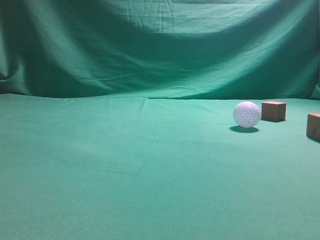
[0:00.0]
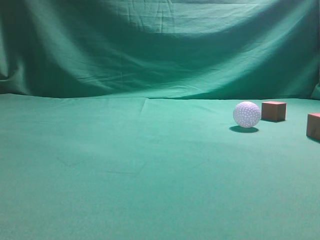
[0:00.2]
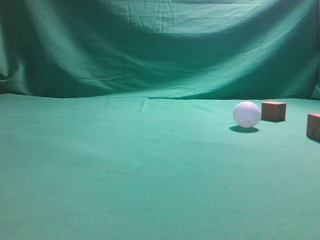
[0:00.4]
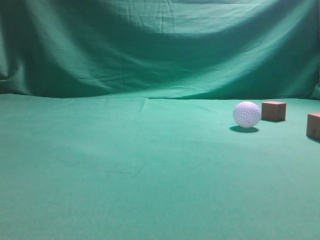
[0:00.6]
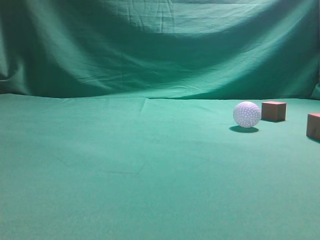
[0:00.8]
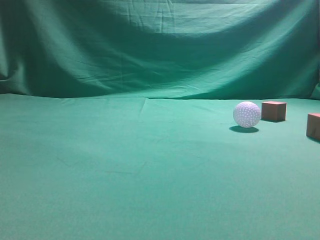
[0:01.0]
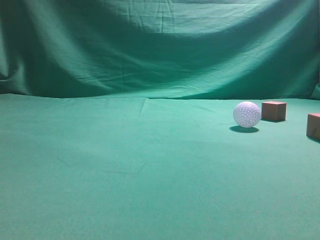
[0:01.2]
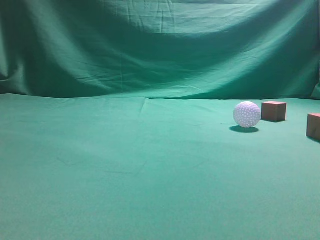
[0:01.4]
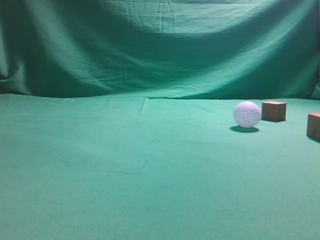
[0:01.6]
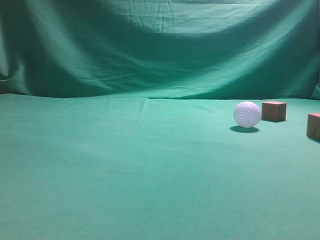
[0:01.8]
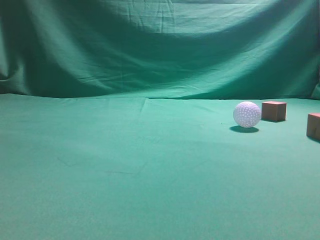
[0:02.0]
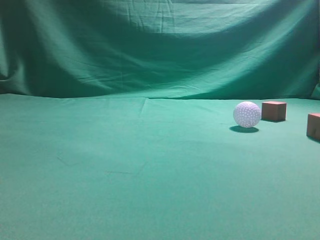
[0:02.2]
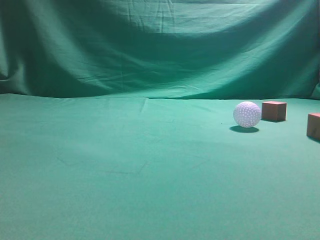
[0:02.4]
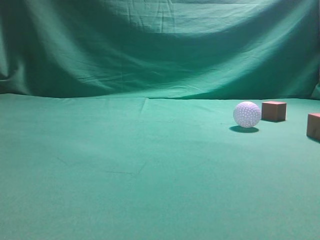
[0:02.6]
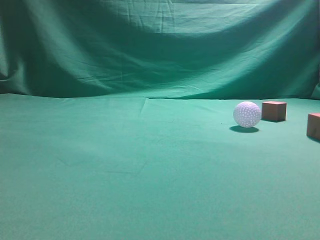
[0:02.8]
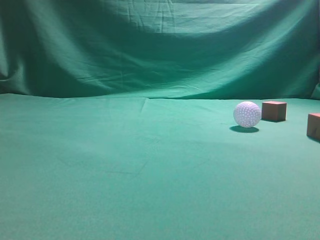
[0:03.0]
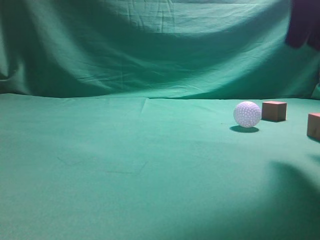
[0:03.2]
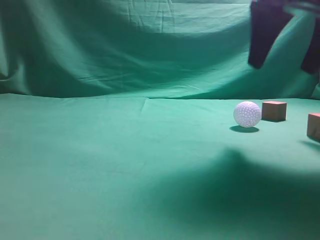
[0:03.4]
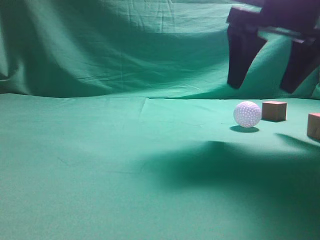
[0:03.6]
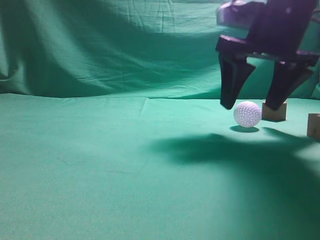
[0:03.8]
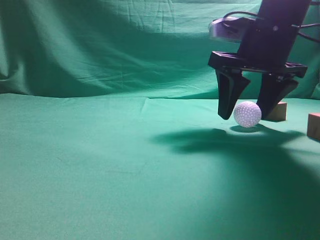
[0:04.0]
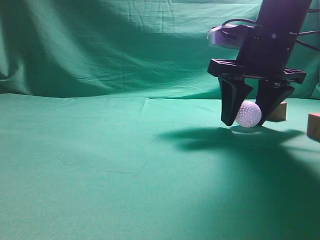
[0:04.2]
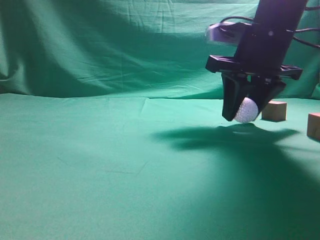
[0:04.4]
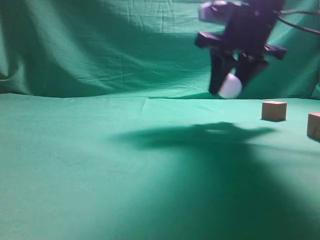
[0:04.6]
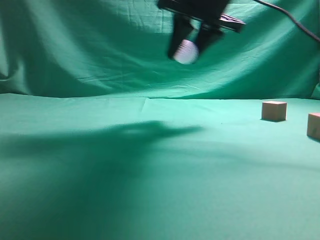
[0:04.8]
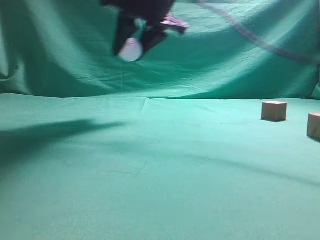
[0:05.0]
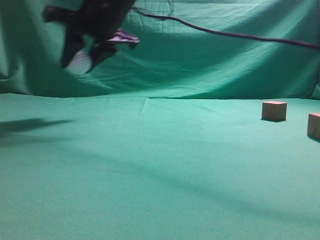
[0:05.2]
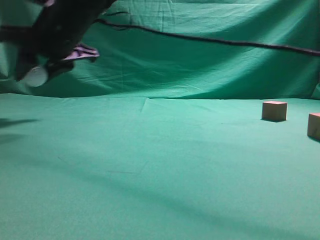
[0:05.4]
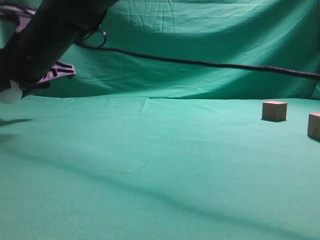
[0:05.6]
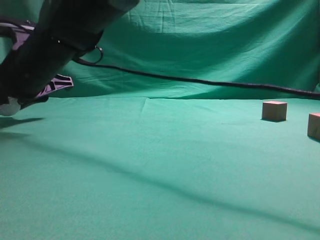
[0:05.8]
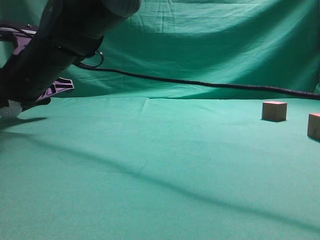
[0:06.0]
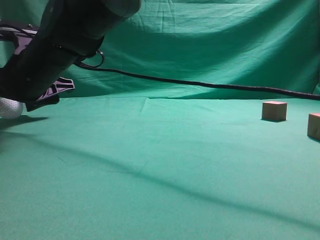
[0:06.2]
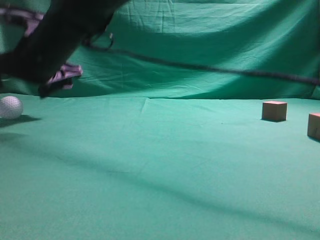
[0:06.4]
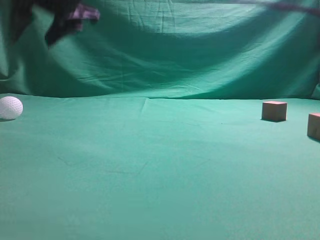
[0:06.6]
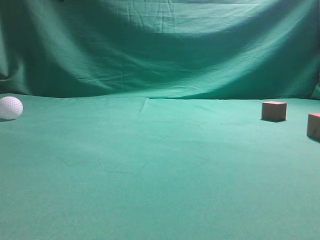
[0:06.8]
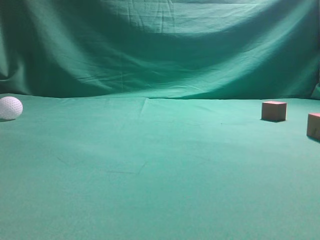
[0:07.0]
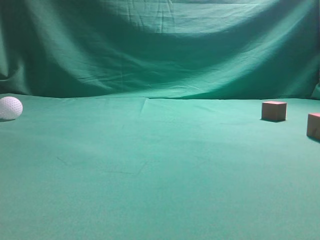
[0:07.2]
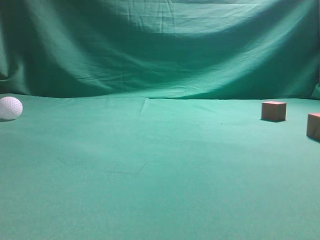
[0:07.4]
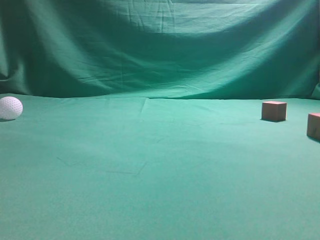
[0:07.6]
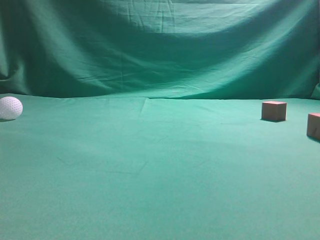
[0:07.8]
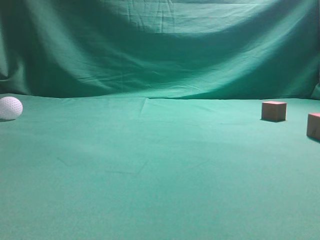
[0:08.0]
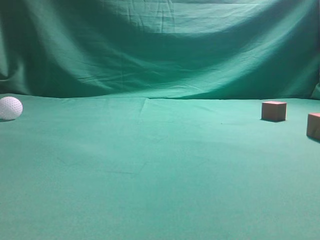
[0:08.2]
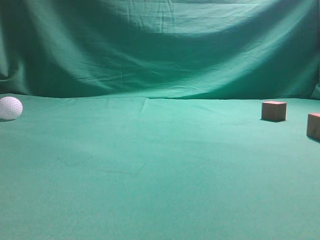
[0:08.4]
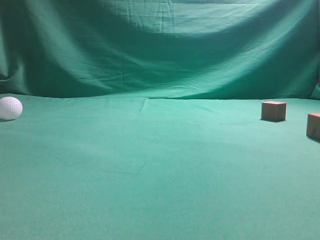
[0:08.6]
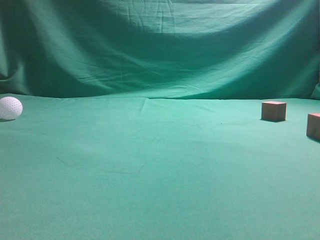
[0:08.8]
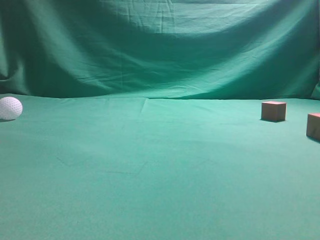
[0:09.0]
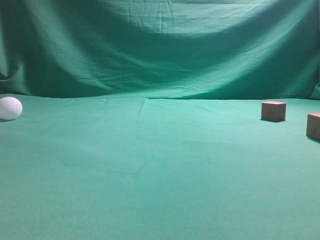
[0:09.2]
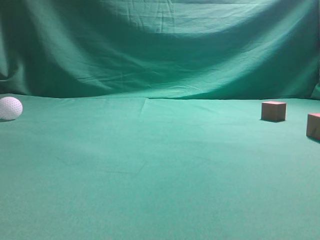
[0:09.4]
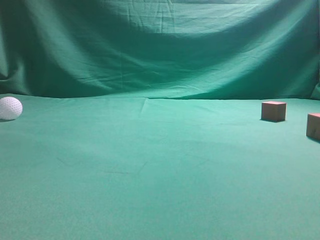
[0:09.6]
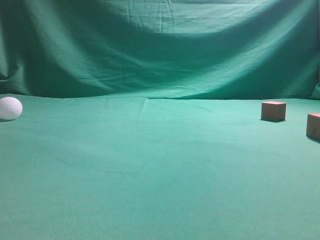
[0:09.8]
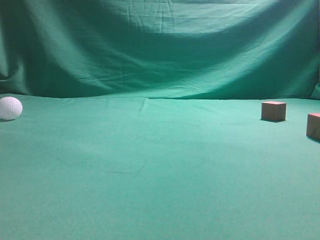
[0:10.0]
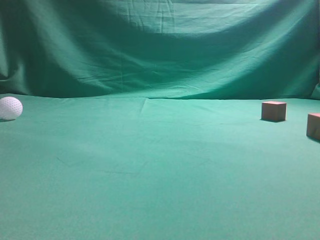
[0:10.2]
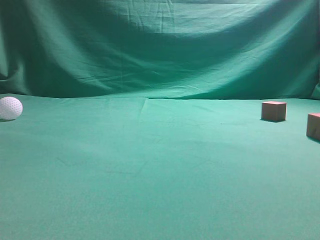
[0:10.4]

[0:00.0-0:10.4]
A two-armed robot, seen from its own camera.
Step, 0:00.0 to 0:04.4: Grasp the spherical object on the right side.
0:03.0 to 0:04.4: The right gripper goes roughly 20 cm forward, downward and to the left, and opens up.
0:04.4 to 0:06.0: The right gripper is displaced to the left by roughly 30 cm.
0:06.0 to 0:07.4: The right gripper moves upward and to the right, approximately 40 cm, and closes up.
